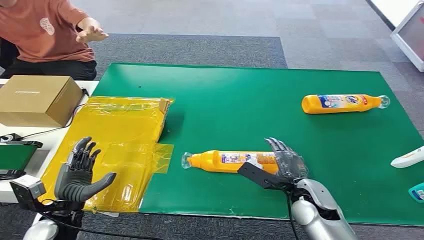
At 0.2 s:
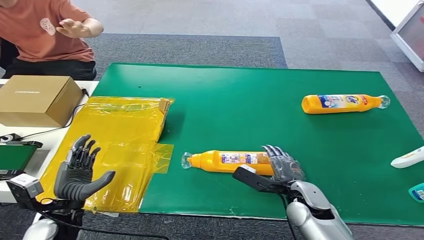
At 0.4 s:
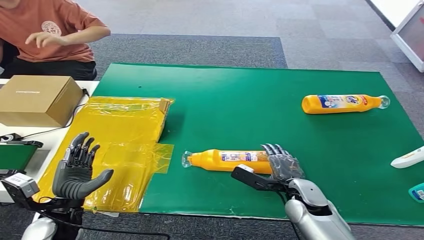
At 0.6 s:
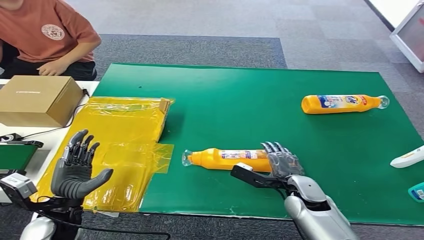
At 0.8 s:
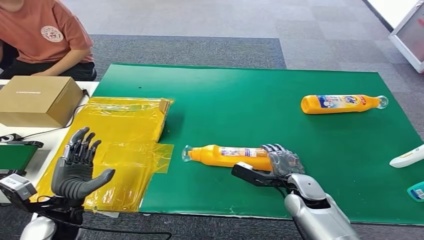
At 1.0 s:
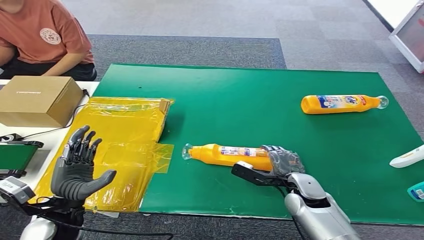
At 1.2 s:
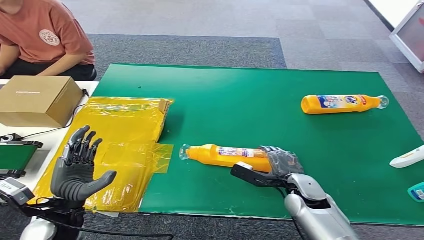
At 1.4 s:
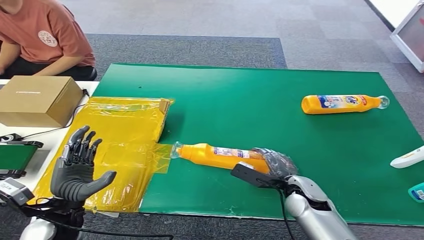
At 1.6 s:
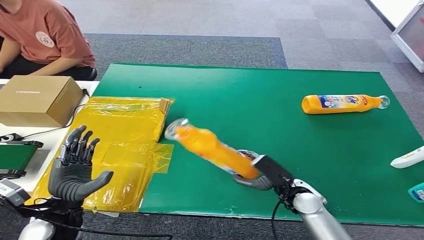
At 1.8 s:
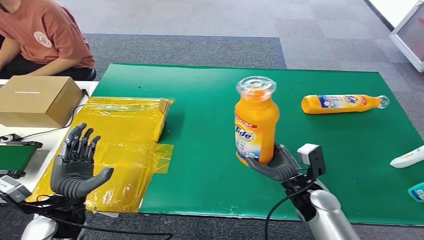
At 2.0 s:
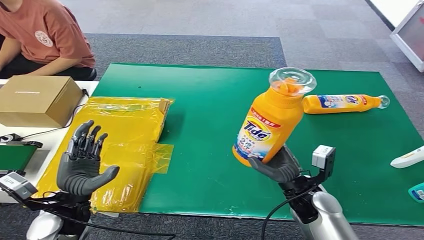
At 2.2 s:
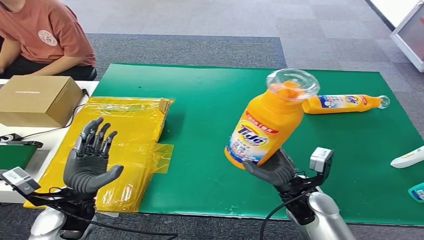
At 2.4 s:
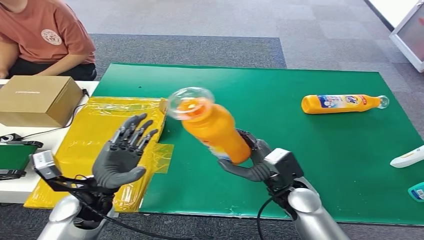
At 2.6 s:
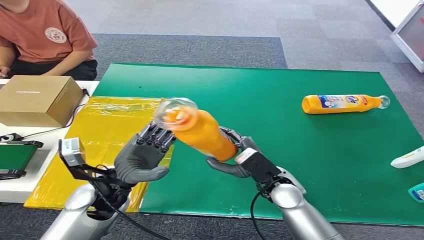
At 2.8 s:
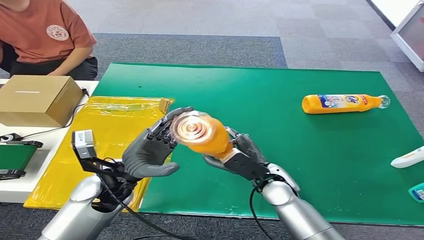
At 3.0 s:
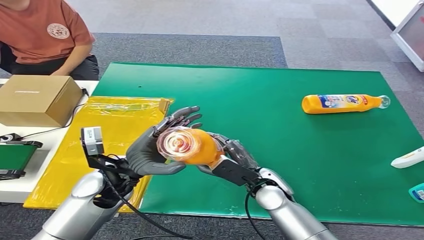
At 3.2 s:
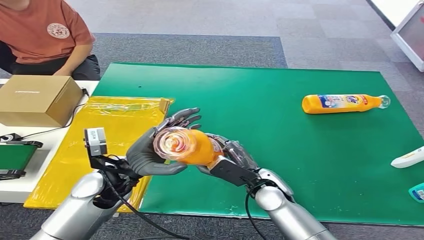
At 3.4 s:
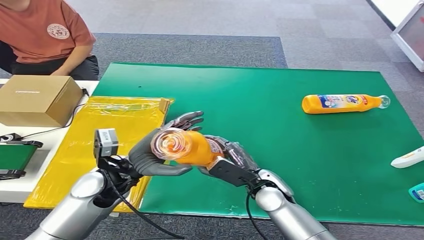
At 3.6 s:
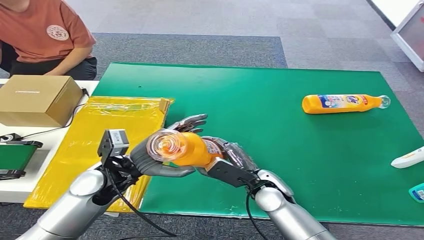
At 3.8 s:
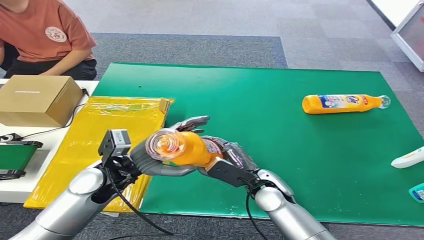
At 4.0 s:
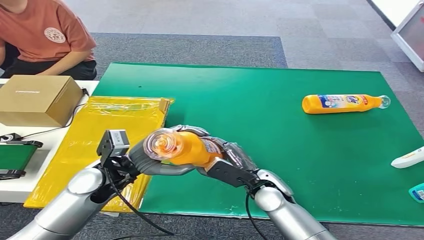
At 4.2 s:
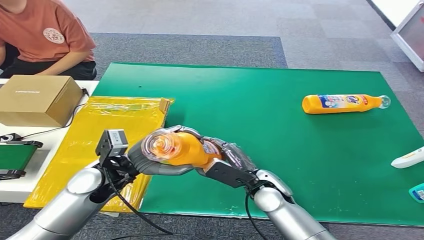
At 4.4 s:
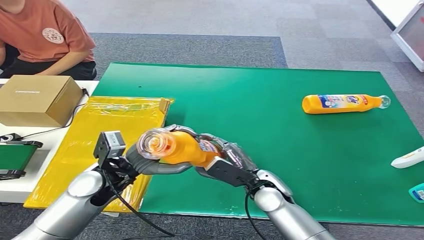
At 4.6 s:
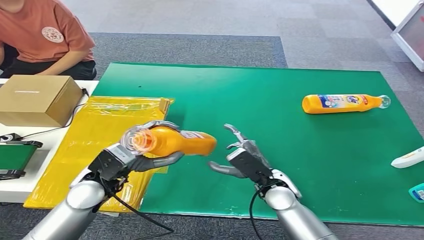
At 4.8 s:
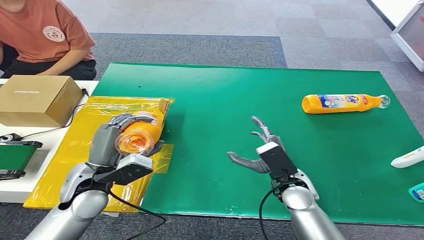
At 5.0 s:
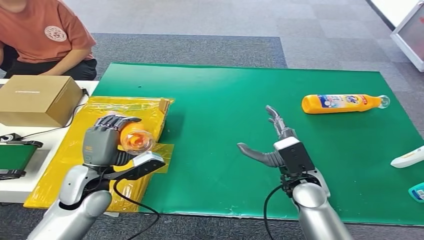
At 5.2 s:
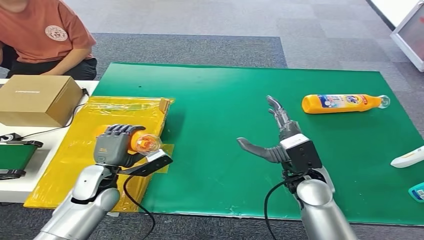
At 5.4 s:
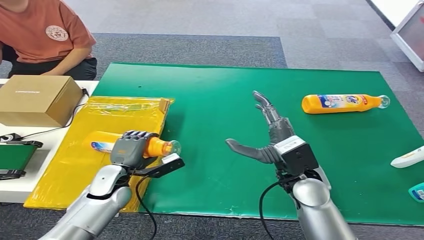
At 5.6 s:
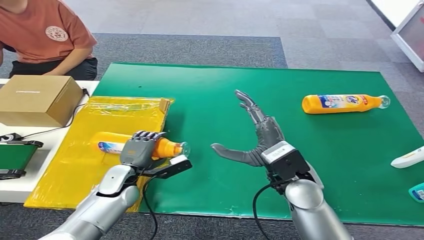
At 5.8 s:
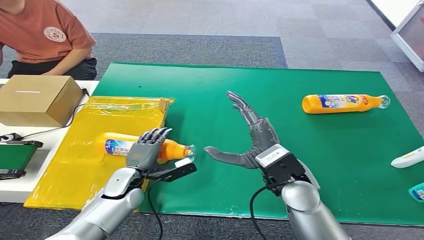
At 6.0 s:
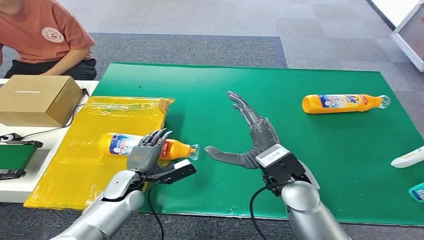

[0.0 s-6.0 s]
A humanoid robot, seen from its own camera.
Step, 0.0 to 2.0 s: Pick up the bottle from the table.
Step, 2.4 to 6.0 s: Turn the bottle to the front side.
3.0 to 4.4 s: There are only small adjustments of the hands.
4.4 to 6.0 s: The right hand shifts roughly 10 cm upward. Meanwhile the left hand heads downward, covering approximately 10 cm.
